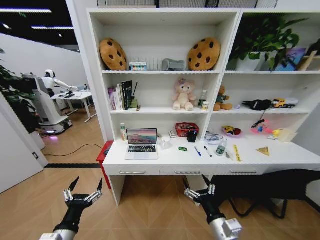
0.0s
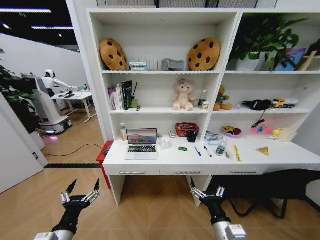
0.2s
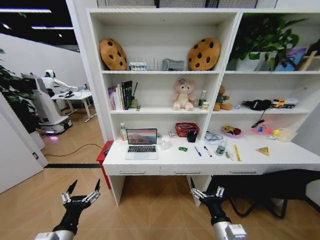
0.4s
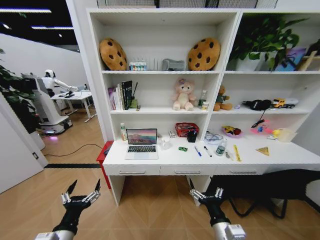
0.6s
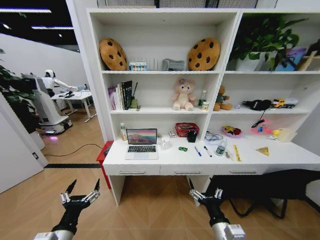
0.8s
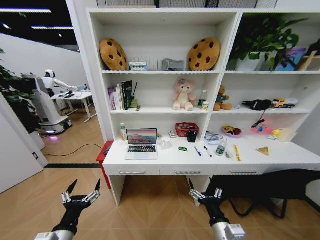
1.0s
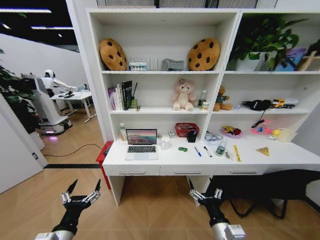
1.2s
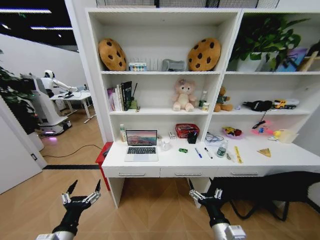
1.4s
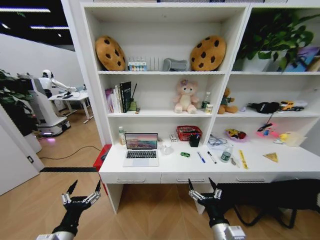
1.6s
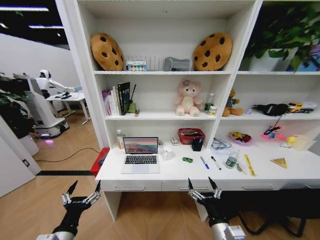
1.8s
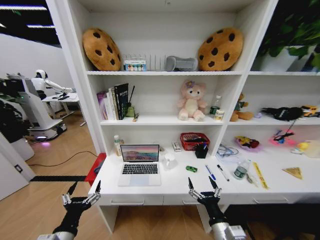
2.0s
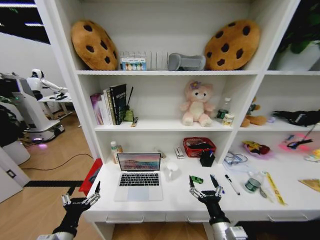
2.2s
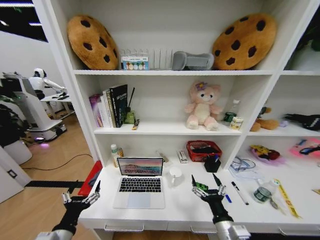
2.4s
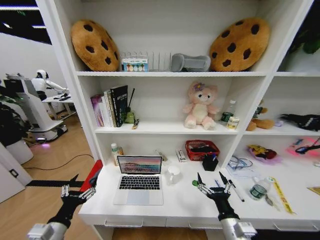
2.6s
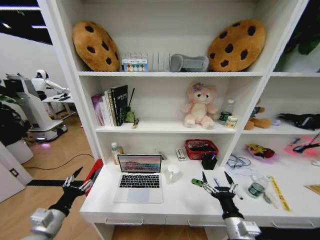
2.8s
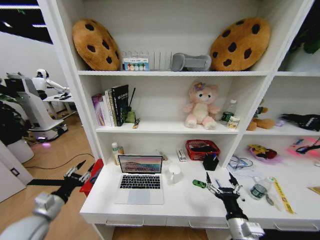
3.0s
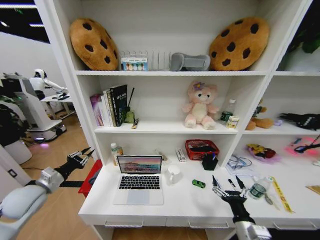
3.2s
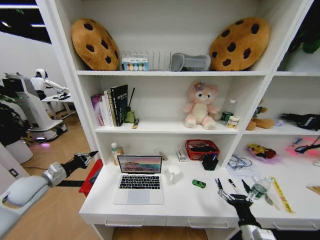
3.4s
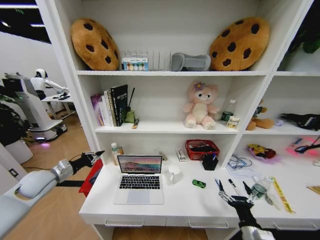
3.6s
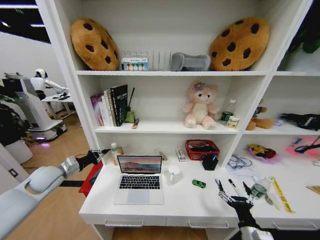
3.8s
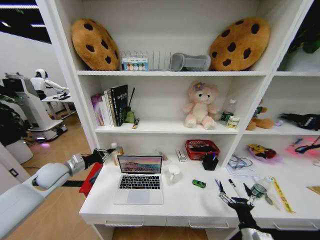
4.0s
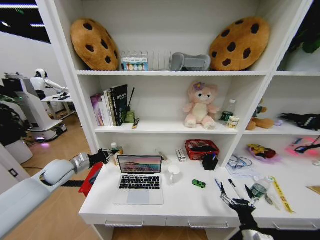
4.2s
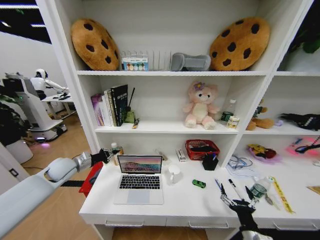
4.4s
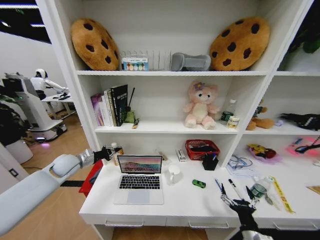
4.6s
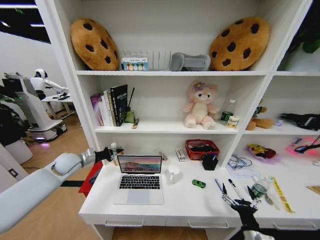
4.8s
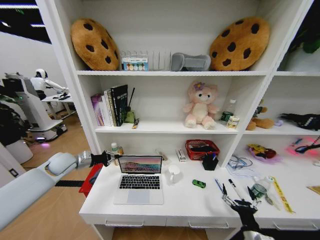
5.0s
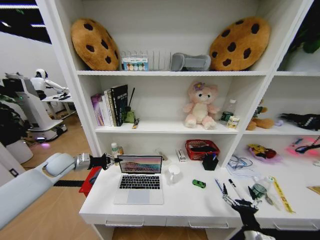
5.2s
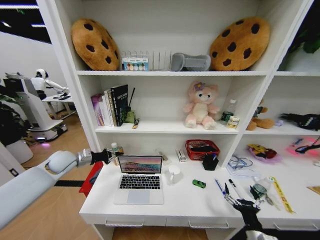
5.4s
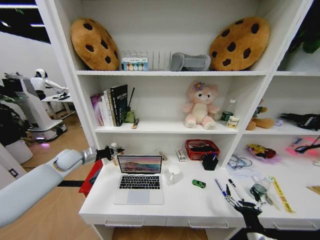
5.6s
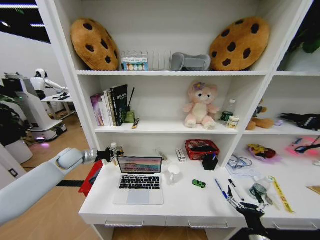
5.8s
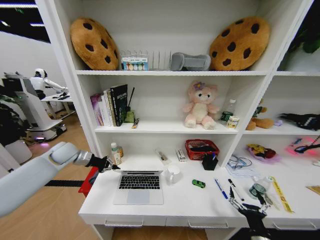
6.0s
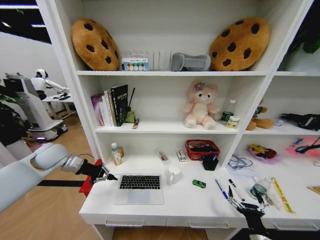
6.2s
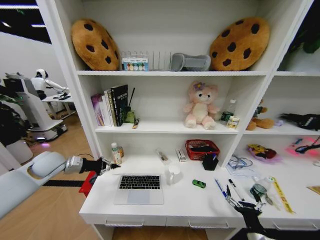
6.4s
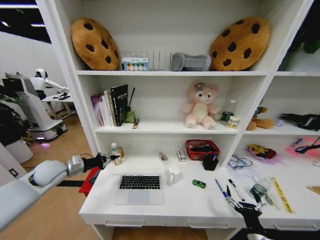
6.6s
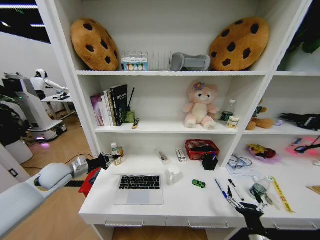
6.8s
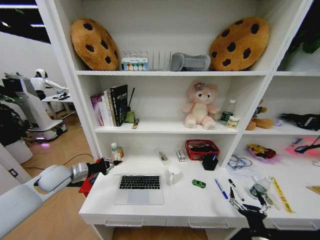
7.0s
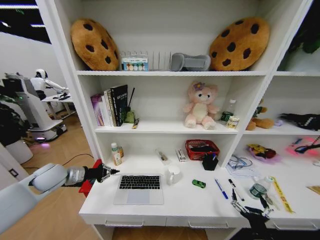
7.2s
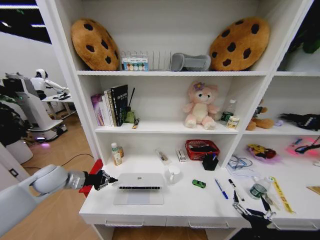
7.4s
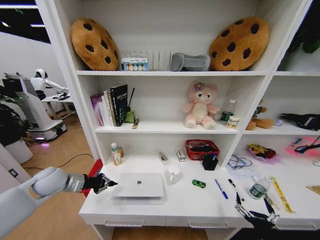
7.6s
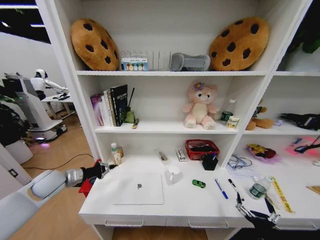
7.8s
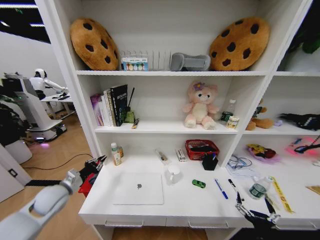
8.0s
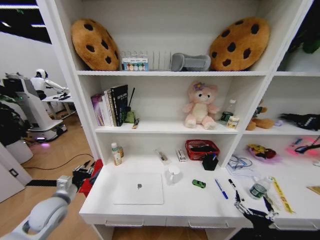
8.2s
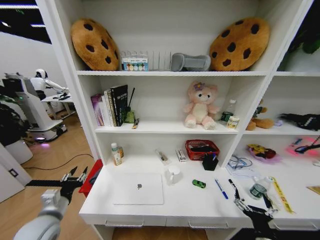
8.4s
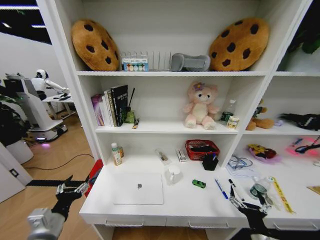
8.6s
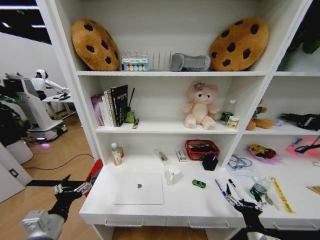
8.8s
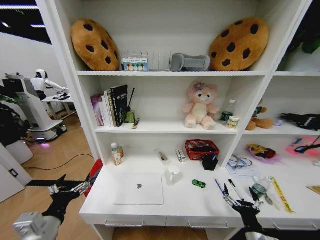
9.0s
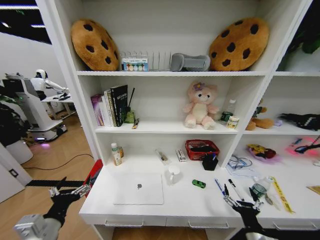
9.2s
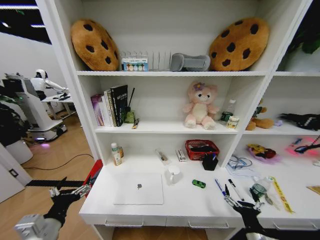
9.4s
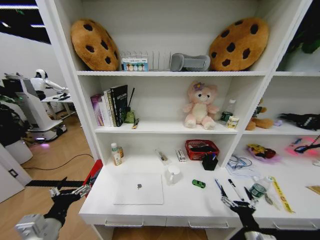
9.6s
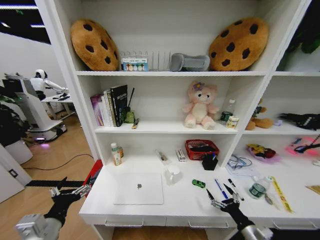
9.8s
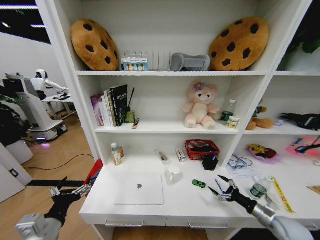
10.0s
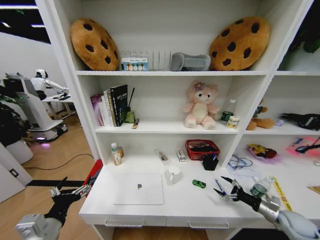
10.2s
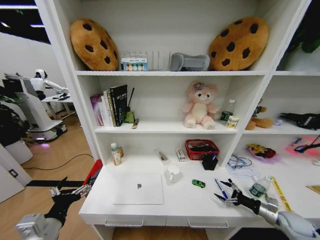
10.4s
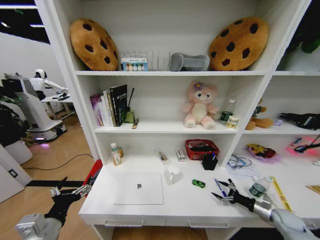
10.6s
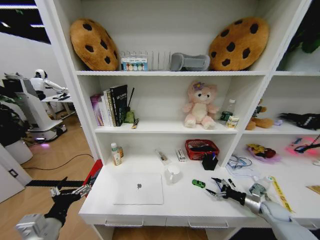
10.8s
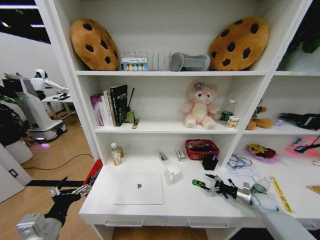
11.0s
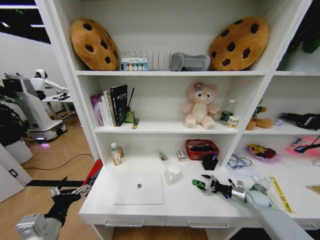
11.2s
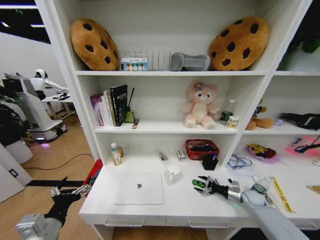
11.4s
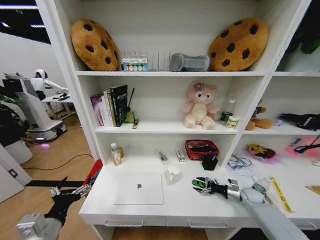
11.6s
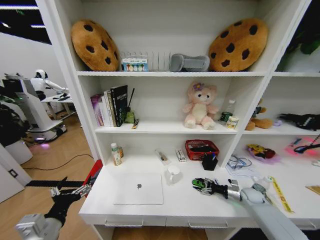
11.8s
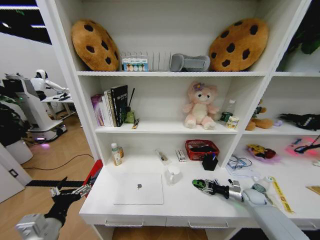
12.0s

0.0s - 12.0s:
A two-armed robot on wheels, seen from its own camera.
Task of the whole recording: Organize the objects on the table.
1.6s - 3.0s: The left gripper heads to the left and forward, covering some 15 cm, and closes up. The right gripper travels to the right by some 5 cm.
3.0s - 4.4s: The left gripper heads forward, covering roughly 20 cm, and closes up; the right gripper travels to the right by approximately 5 cm.
4.4s - 6.0s: The left gripper heads forward and upward, covering some 5 cm.
6.0s - 7.6s: The left gripper is displaced backward by about 10 cm.
7.6s - 9.0s: The right gripper shifts by about 5 cm. Meanwhile the left gripper shifts roughly 20 cm backward, and opens up.
9.0s - 10.4s: The right gripper is displaced to the right and forward by roughly 30 cm.
10.4s - 12.0s: The right gripper shifts approximately 15 cm forward and to the left, and closes up.

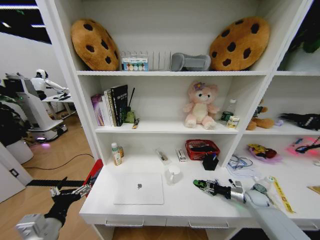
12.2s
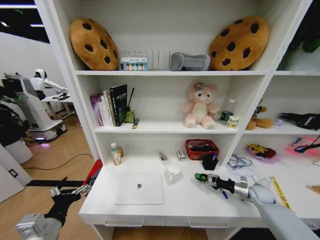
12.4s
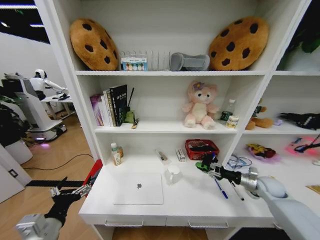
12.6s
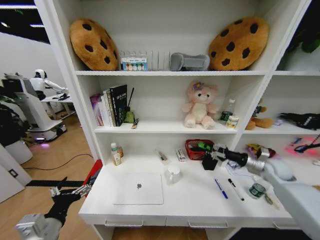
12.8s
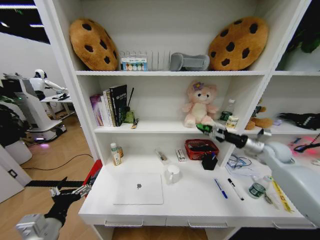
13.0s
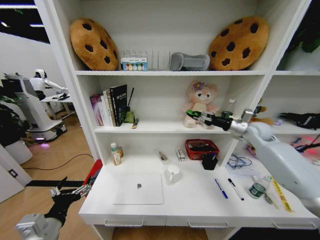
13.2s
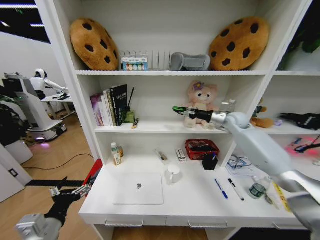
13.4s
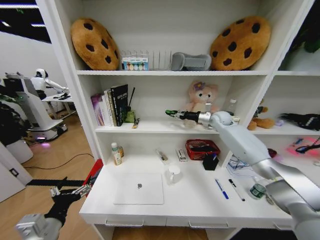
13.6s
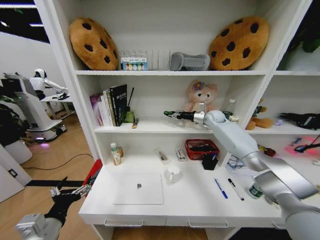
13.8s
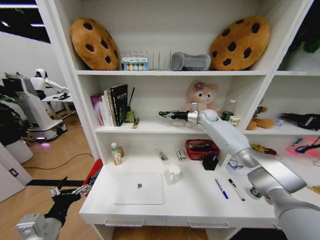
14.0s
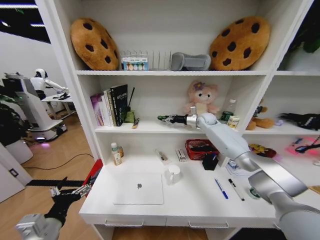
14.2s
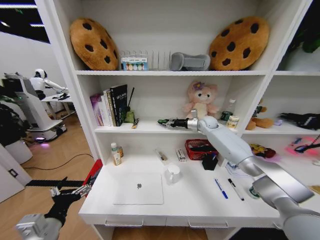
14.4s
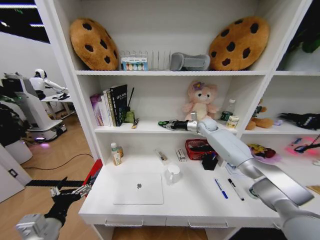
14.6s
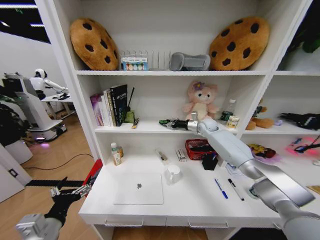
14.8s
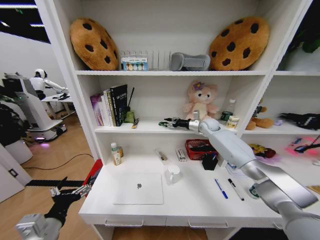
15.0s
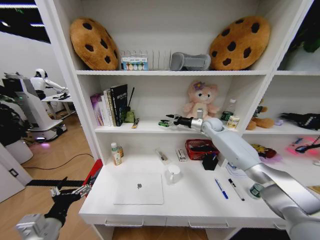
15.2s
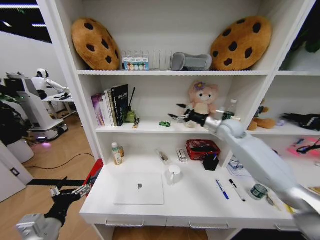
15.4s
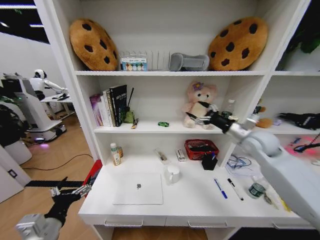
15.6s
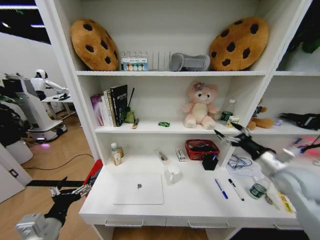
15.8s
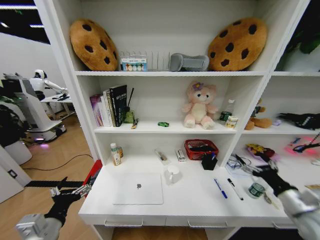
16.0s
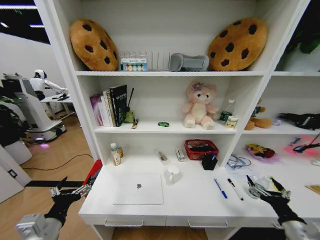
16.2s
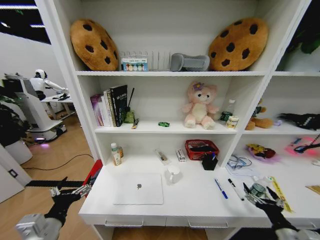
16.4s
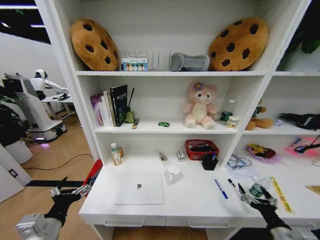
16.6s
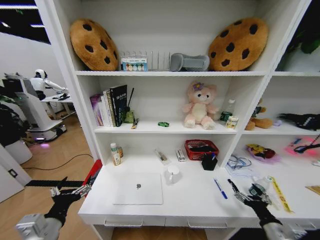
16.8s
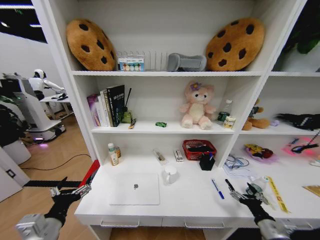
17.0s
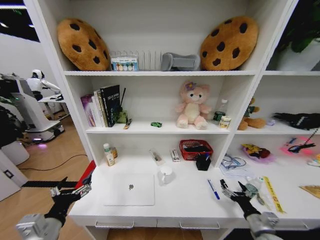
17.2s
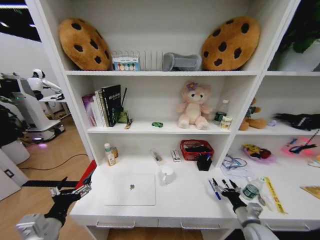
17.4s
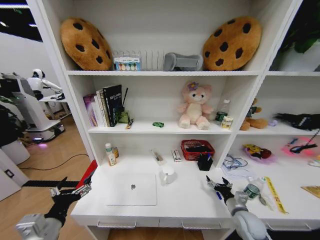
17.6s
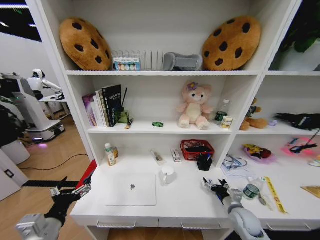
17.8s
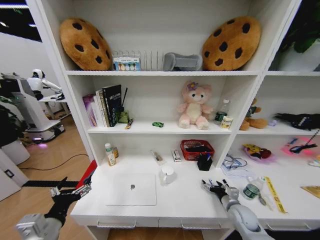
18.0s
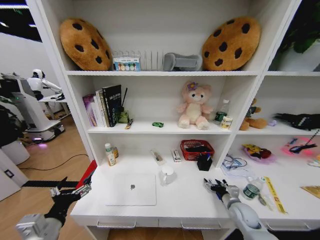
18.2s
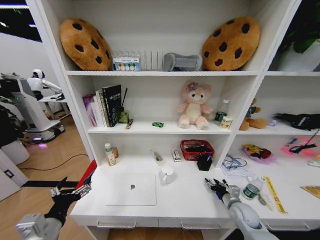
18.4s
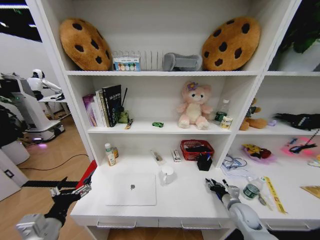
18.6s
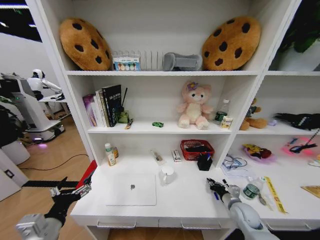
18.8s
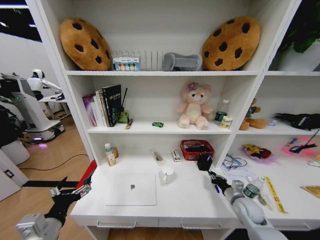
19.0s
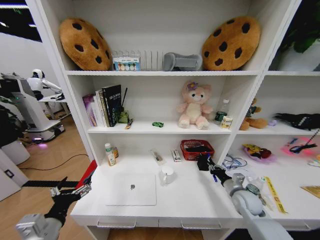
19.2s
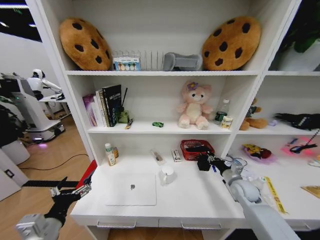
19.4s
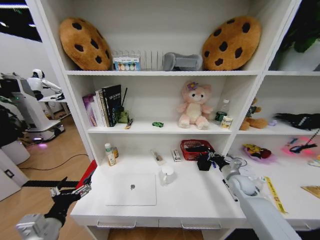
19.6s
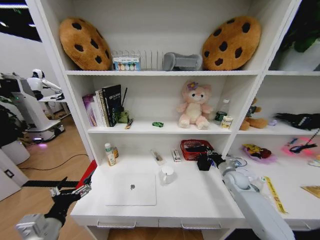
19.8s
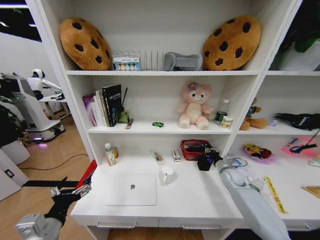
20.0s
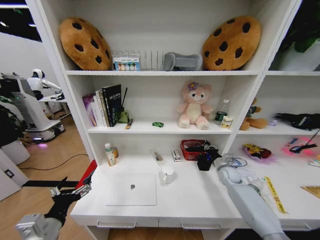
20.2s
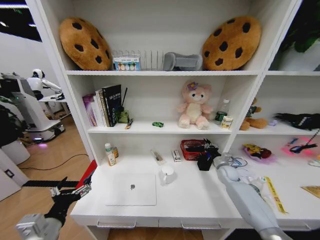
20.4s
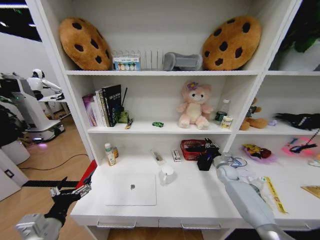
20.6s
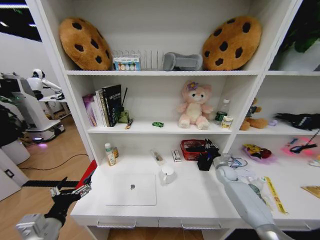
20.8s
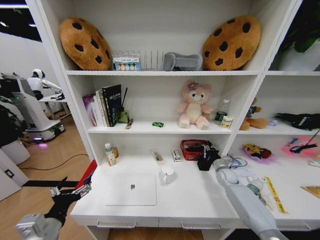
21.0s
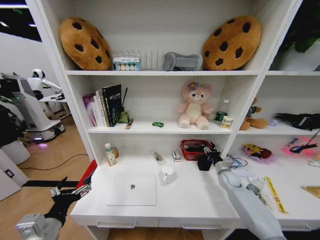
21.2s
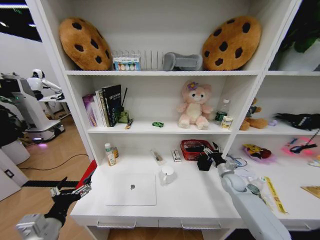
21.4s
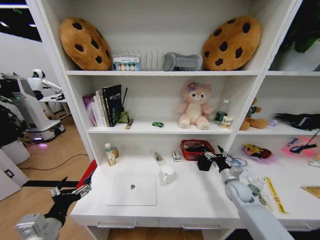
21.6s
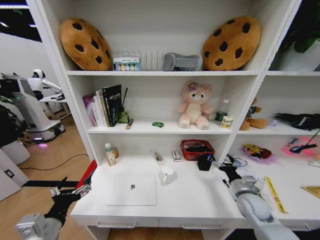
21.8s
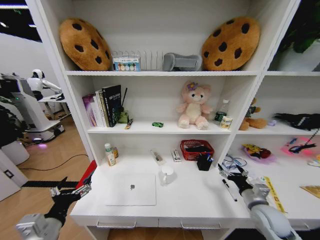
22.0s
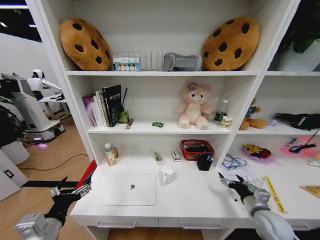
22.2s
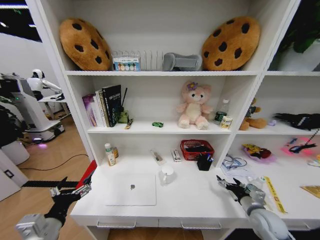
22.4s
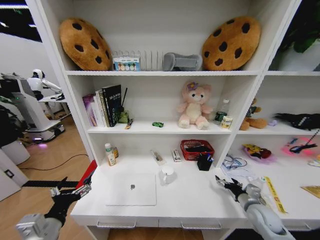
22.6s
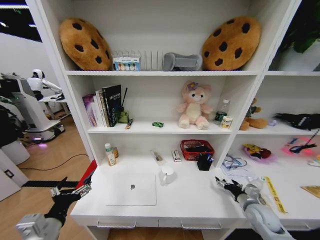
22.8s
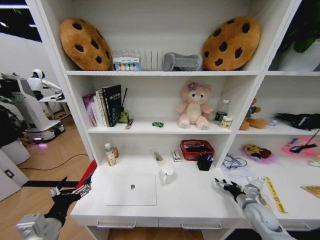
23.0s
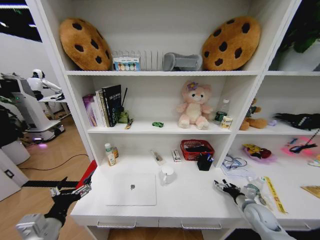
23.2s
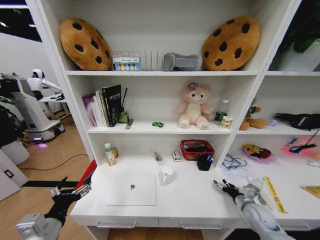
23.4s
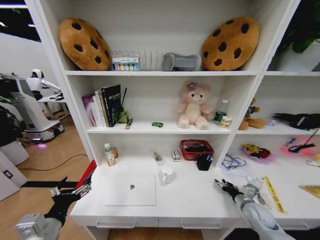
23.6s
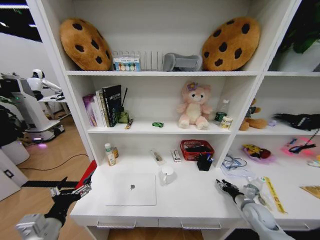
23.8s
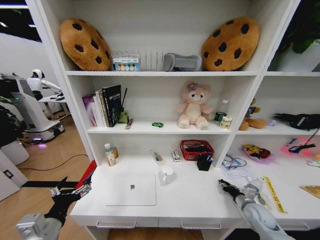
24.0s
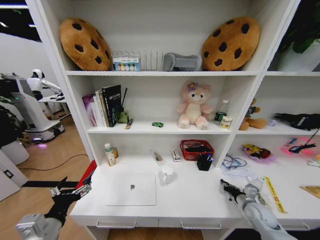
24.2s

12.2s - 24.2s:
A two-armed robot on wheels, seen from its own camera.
Task of the whole recording: Organize the objects on the table.
12.2s - 13.8s: The right gripper heads upward, forward and to the left, covering approximately 50 cm.
13.8s - 15.2s: The right gripper changes place by roughly 5 cm, and opens.
15.2s - 16.6s: The right gripper moves backward and downward, roughly 50 cm.
16.6s - 18.2s: The right gripper shifts about 15 cm forward.
18.2s - 19.8s: The right gripper goes roughly 15 cm forward and upward, and closes up.
19.8s - 21.2s: The right gripper opens.
21.2s - 22.6s: The right gripper travels backward by approximately 20 cm, and opens up.
22.6s - 24.2s: The right gripper closes up.
